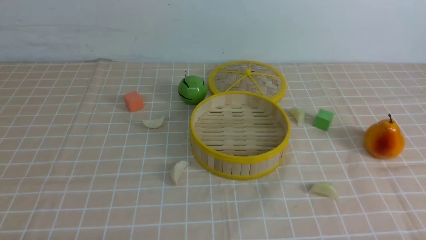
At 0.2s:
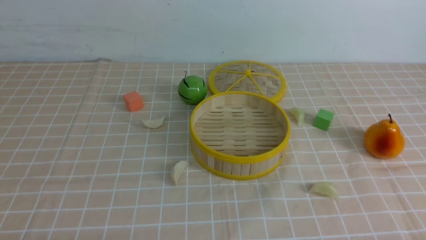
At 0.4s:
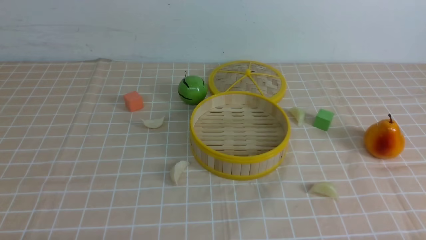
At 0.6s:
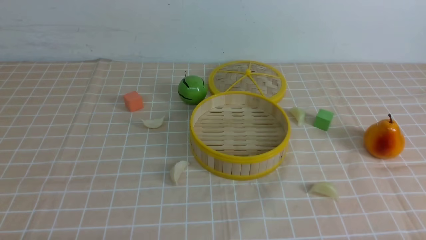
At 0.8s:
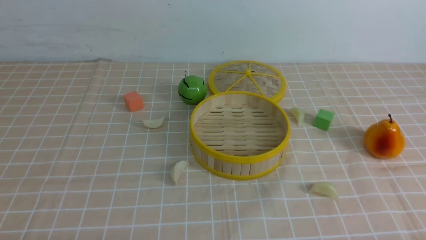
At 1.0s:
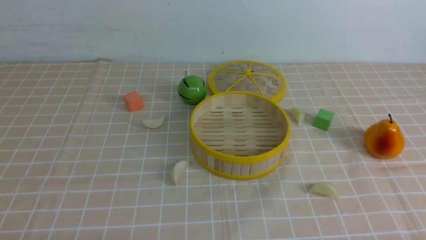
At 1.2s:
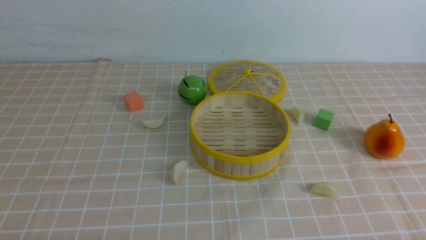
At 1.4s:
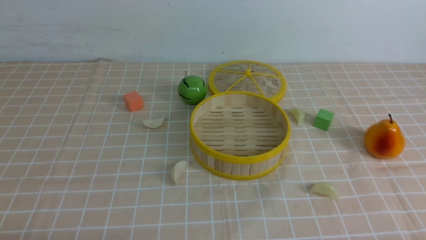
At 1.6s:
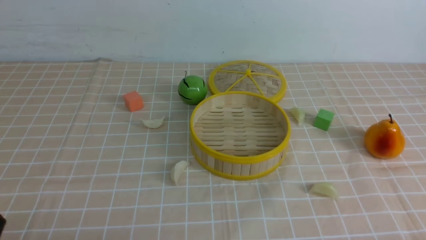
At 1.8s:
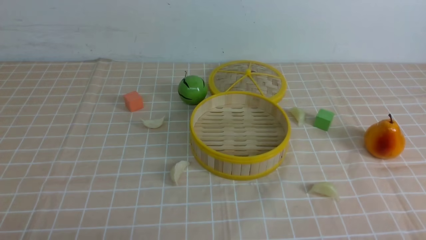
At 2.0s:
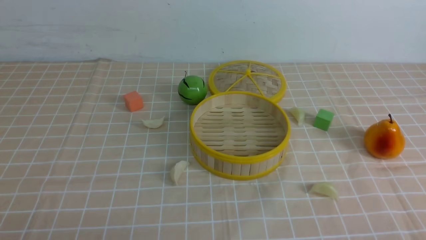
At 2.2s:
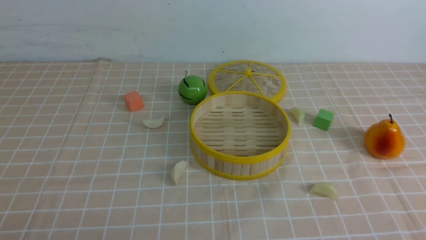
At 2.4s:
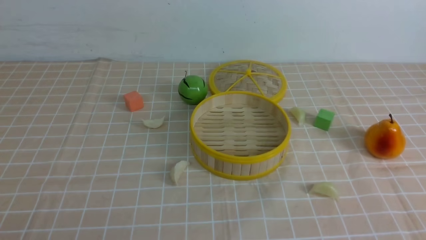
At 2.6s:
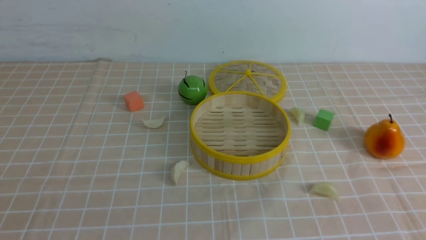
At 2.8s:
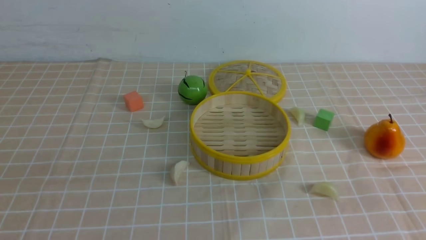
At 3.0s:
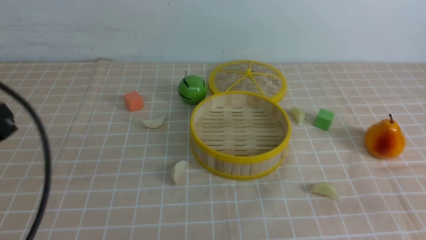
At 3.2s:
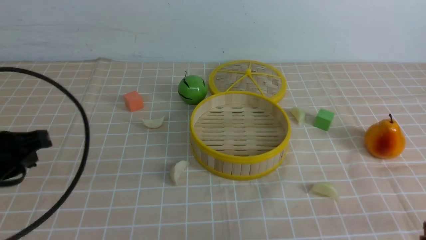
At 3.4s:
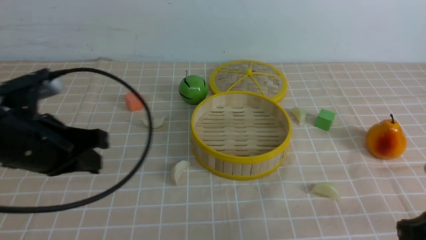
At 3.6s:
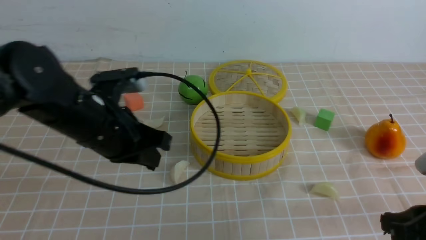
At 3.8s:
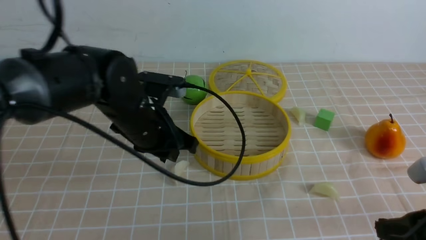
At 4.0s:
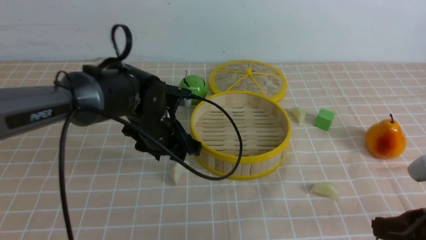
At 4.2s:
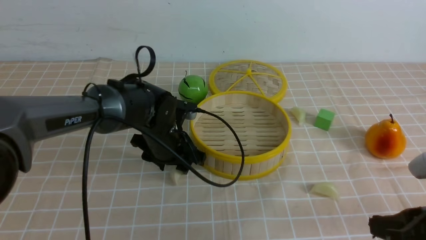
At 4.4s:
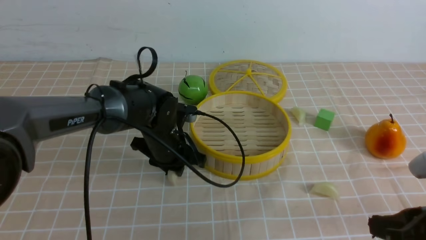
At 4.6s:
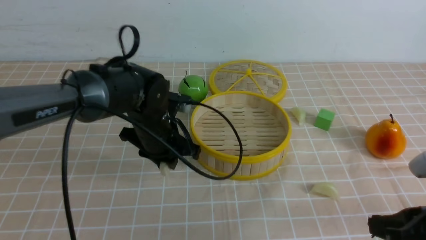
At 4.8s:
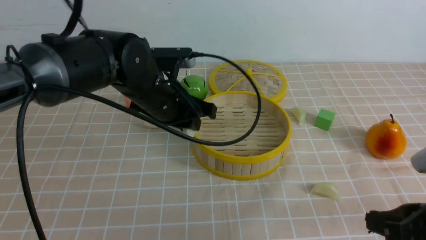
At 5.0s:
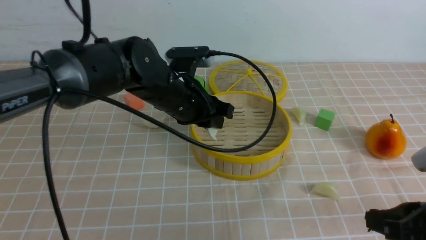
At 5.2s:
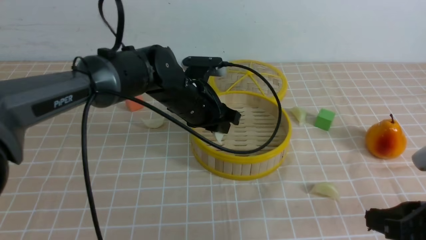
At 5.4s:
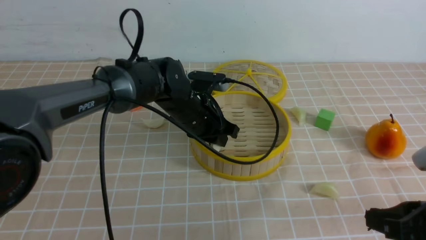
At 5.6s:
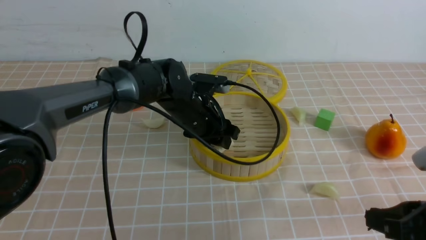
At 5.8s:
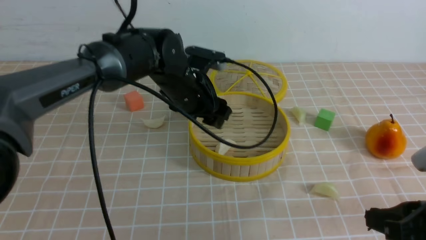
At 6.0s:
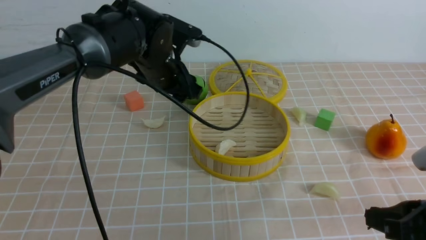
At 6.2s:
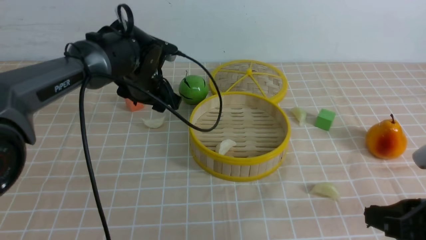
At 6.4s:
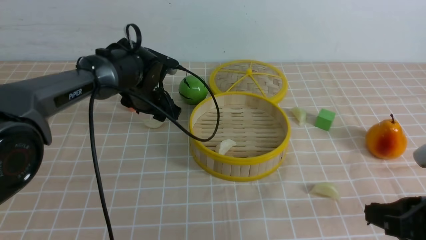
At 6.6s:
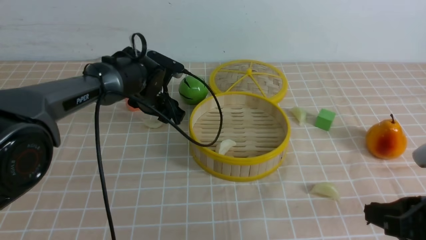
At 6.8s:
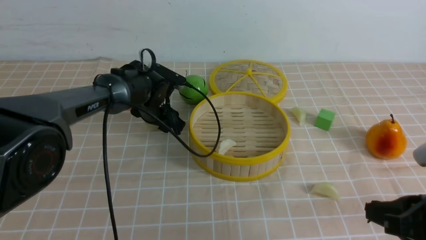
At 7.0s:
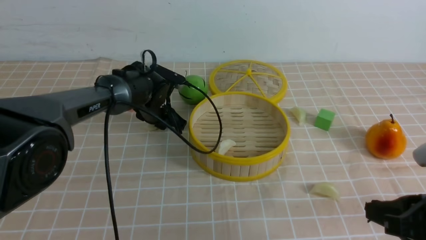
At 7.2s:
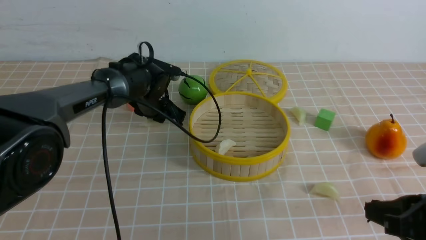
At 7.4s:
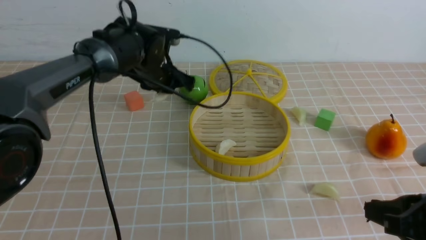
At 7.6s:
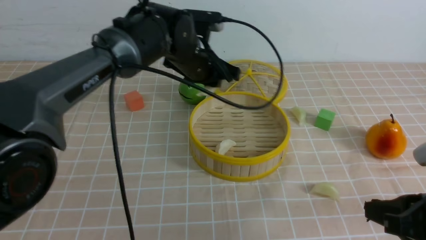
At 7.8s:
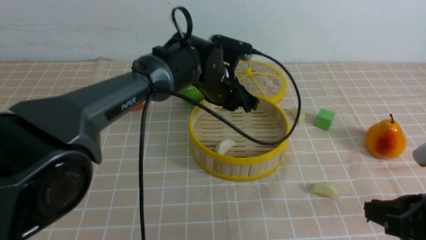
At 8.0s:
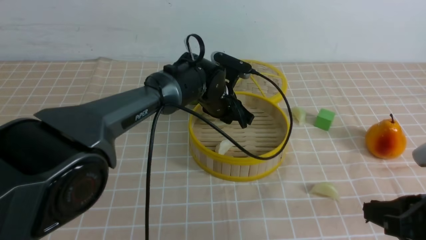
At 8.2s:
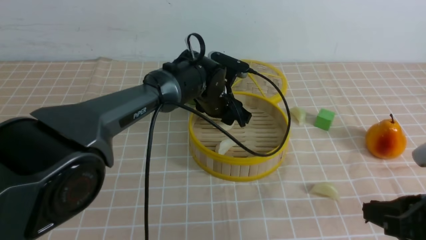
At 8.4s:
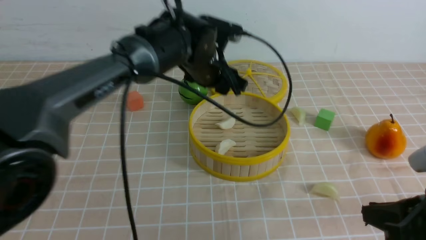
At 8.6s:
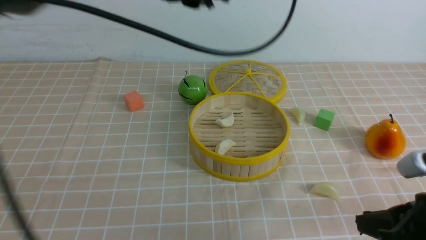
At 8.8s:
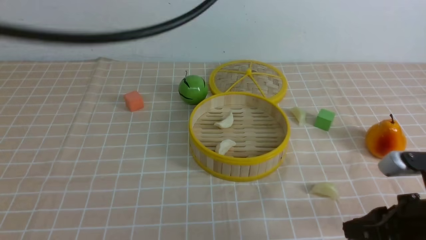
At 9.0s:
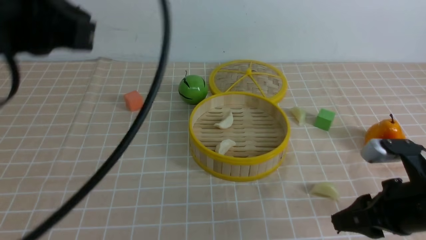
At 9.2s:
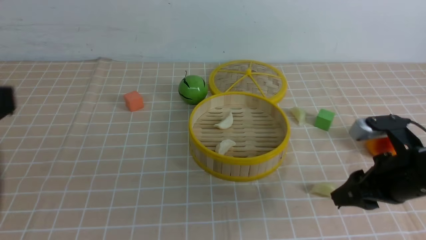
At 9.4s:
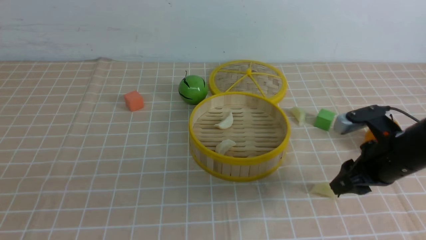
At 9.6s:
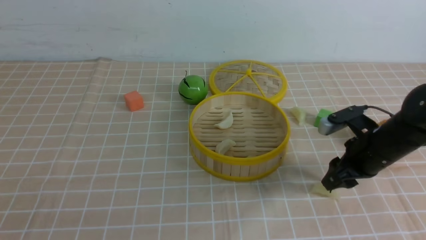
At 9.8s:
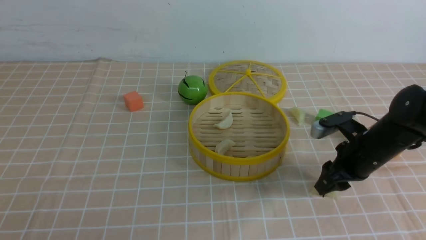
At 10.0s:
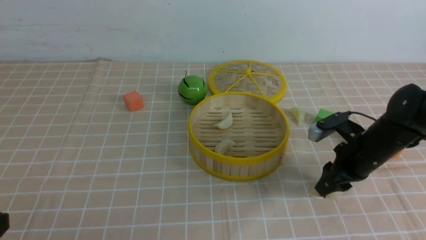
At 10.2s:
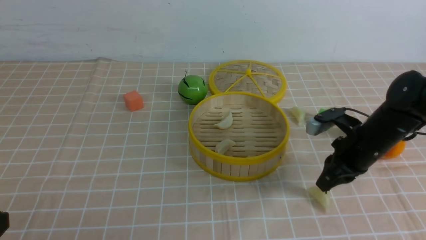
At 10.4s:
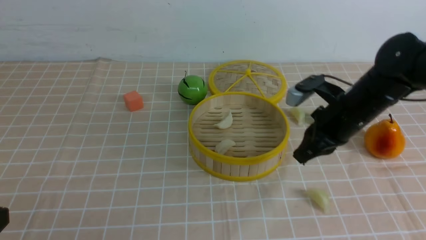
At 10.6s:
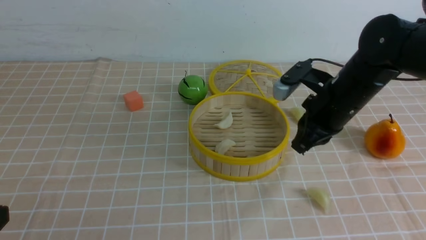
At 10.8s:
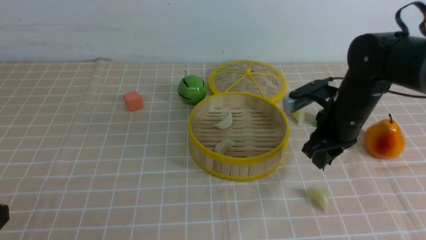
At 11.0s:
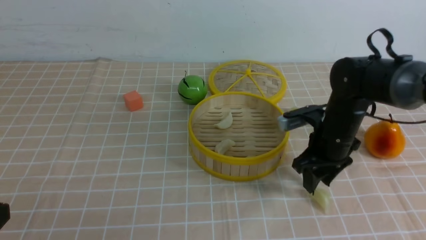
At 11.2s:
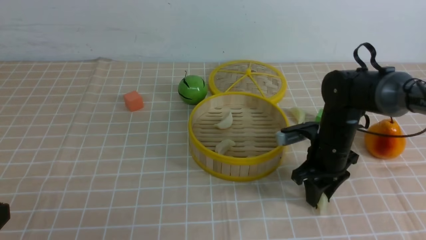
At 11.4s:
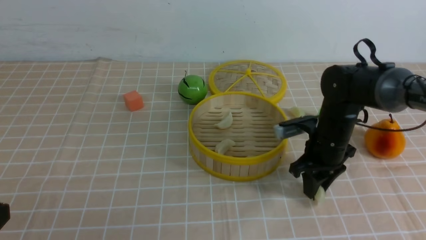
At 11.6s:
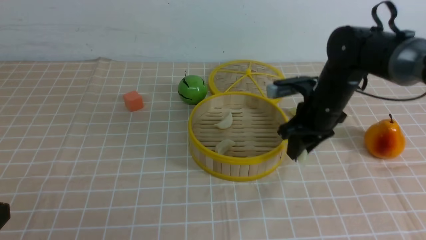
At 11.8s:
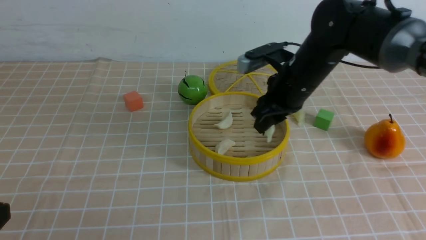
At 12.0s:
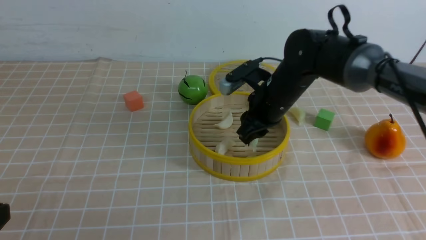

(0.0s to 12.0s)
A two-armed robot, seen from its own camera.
Task of the whole recording: put the dumplings into the steamer on the table with the brown tablecloth.
Step, 0.0s - 4.2s: use the left arm to grab a dumpling.
Step, 4.4s - 5.8s: use the left arm to put the dumpling into the steamer.
Step, 6.0s - 6.8s: use the left arm to grab a dumpling.
Step, 7.0s - 8.4s: use the left arm to put the dumpling into the steamer.
Step, 8.6s - 11.2s: use the right arm to grab a dumpling.
1.6s - 3.0s: The left gripper goes approximately 15 cm upward and forward, and closes its fingers.
3.0s - 4.4s: The right gripper ends up some 5 cm from where it was. The left gripper heads forward, to the right and downward, covering approximately 30 cm, and opens its fingers.
4.4s - 6.0s: The left gripper moves up and down over some 10 cm, changing direction 2 times, and opens up.
6.0s - 7.6s: The left gripper goes about 5 cm to the right, moves roughly 10 cm downward and comes back, and closes up.
7.6s - 9.0s: The left gripper moves backward, upward and to the left, some 40 cm, and closes. The right gripper goes about 5 cm forward, and opens up.
9.0s - 10.4s: The right gripper heads forward, covering roughly 15 cm, and closes. The left gripper moves downward and backward, approximately 20 cm.
10.4s - 12.0s: The right gripper heads to the left and forward, covering approximately 10 cm, and opens its fingers.

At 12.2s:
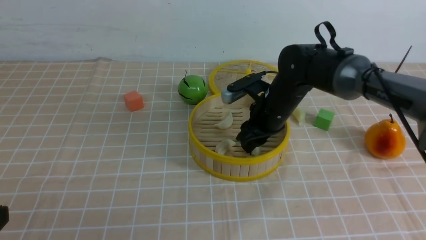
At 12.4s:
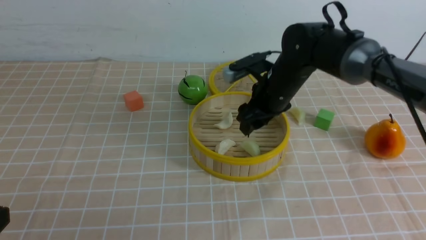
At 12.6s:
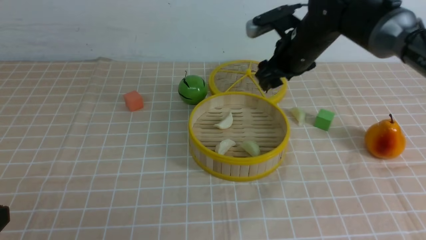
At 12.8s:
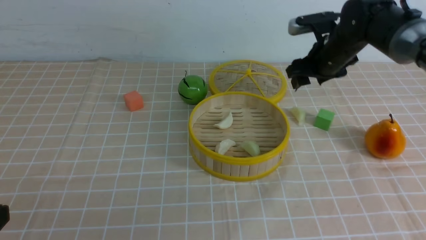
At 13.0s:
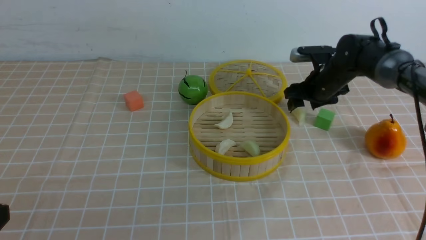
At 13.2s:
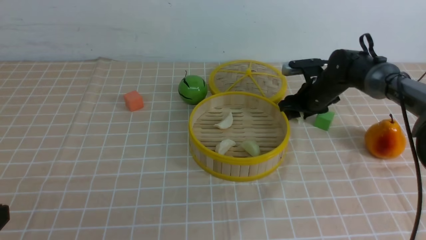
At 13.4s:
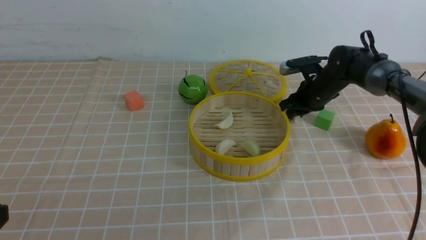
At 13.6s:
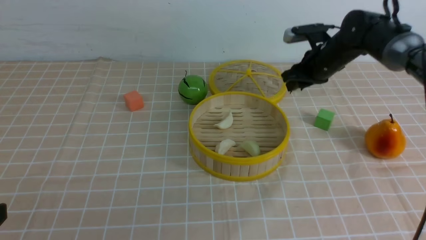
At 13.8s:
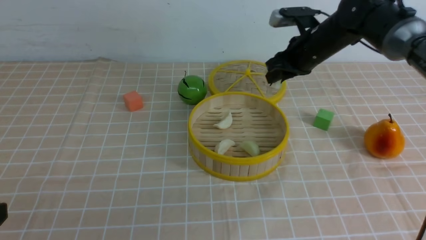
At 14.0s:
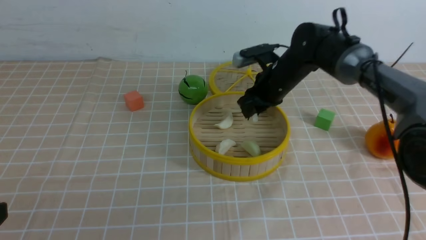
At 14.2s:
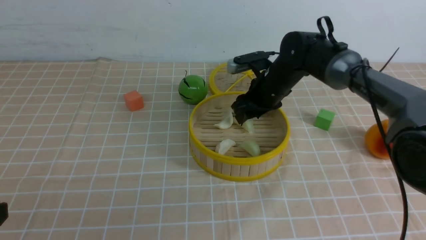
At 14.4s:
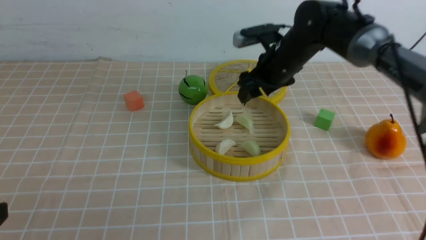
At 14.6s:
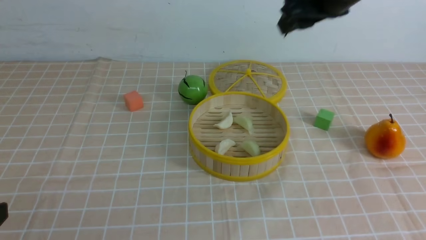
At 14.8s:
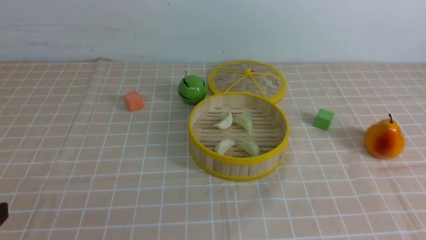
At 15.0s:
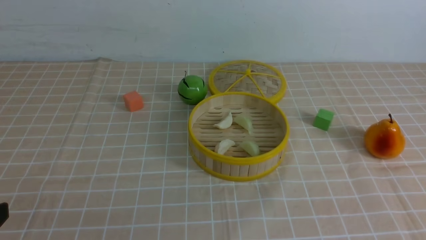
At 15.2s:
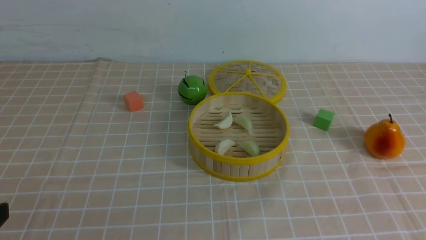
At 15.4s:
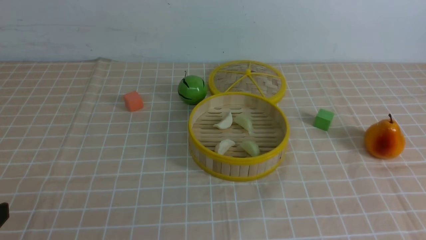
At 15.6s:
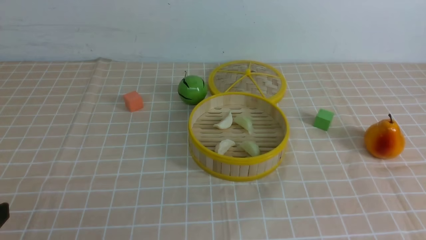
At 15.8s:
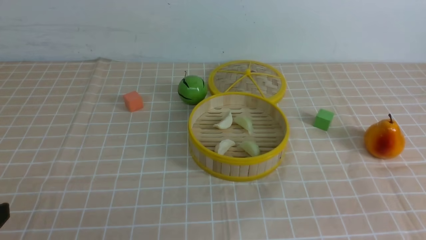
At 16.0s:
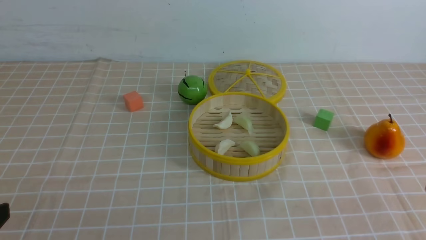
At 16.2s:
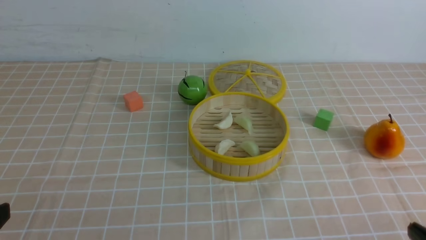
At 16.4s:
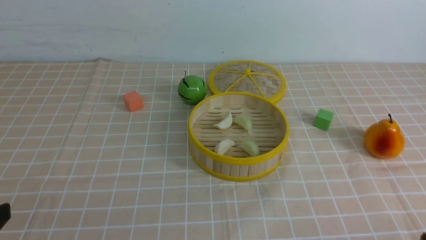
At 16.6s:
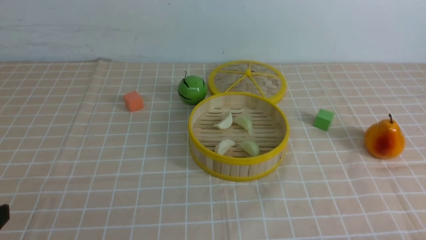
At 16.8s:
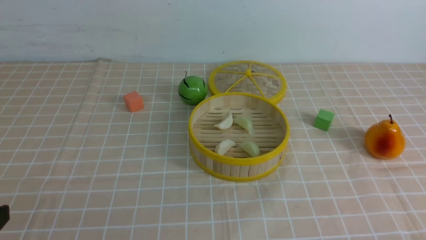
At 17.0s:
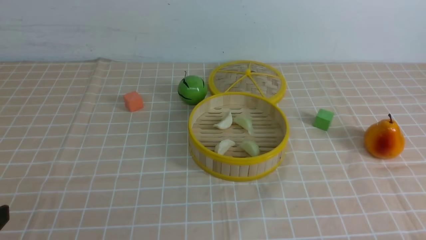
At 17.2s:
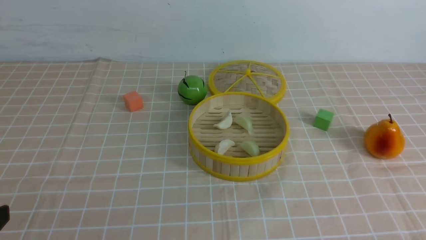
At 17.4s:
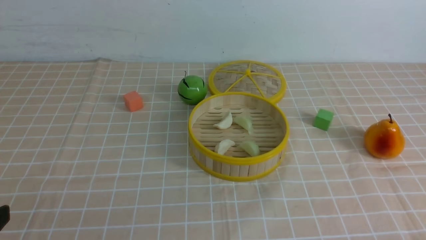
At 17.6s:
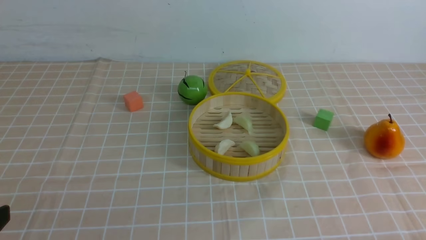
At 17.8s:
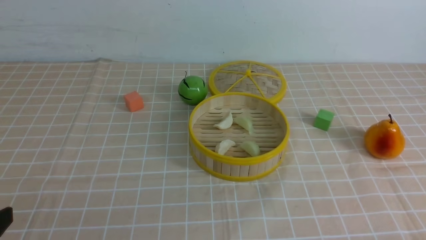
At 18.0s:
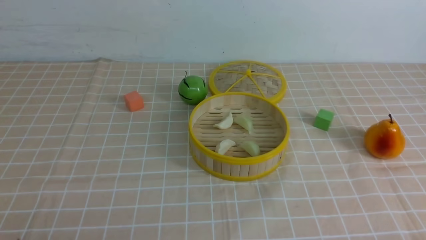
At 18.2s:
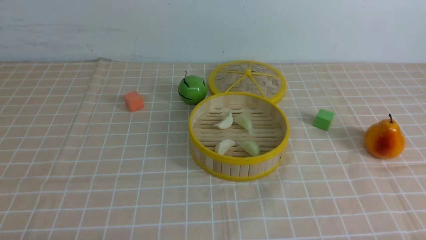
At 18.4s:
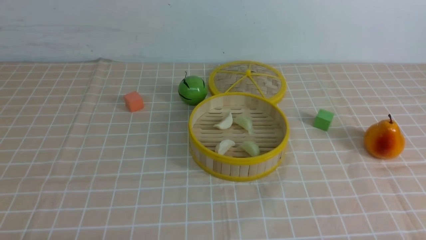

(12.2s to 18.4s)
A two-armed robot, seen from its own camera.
Task of the whole recording: put the dumplings into the steamer on the table with the brown tablecloth.
Step, 12.6s - 13.2s: use the right arm to grab a dumpling.
Step, 13.4s - 14.4s: use the right arm to put the dumpling into the steamer.
12.2s - 13.8s: The right gripper shifts approximately 10 cm forward and to the right.
13.8s - 15.4s: The right gripper is displaced backward and upward by about 50 cm, and closes up.
